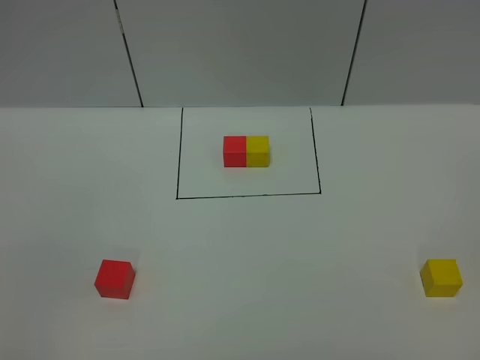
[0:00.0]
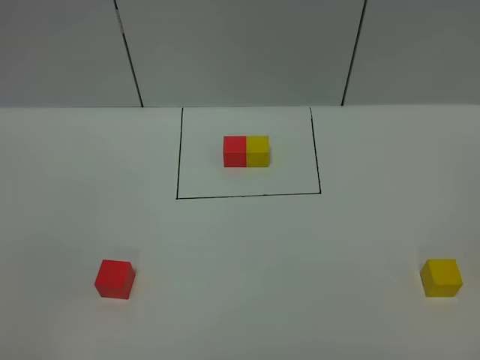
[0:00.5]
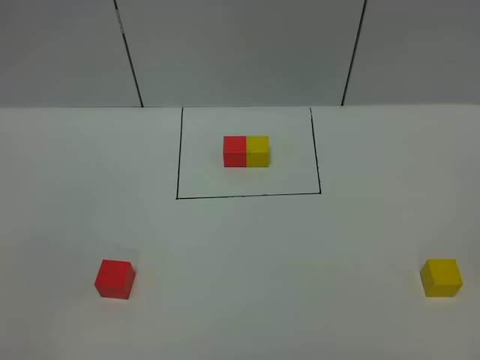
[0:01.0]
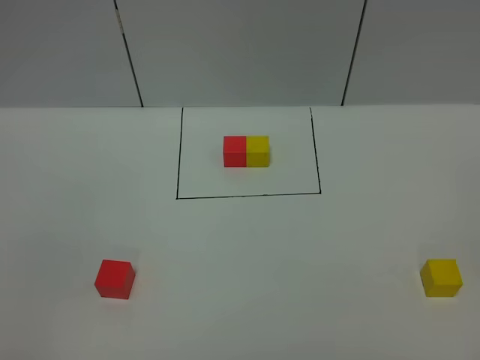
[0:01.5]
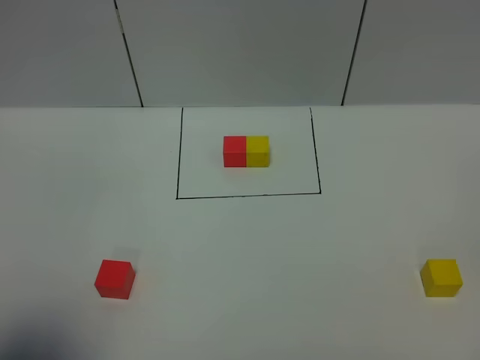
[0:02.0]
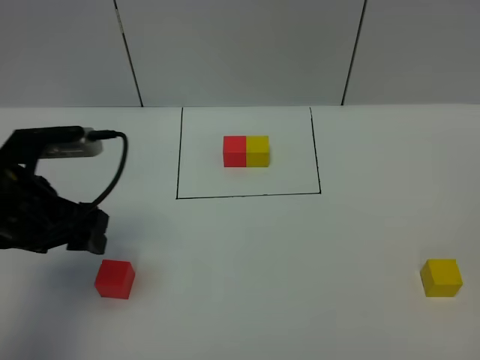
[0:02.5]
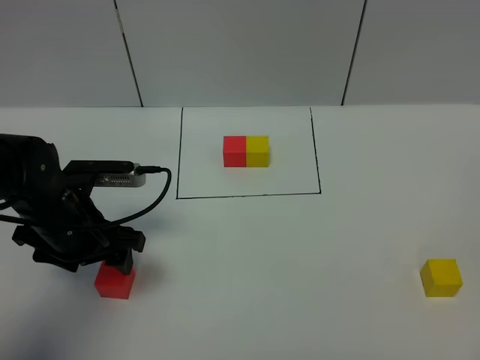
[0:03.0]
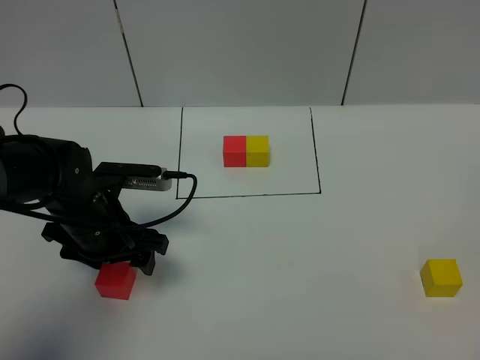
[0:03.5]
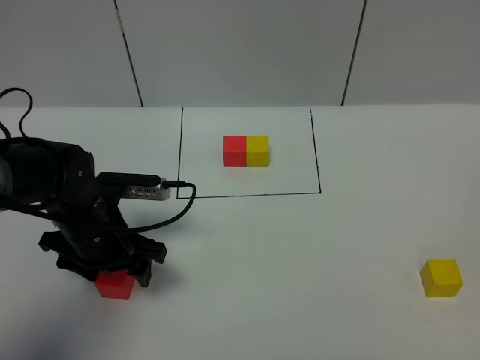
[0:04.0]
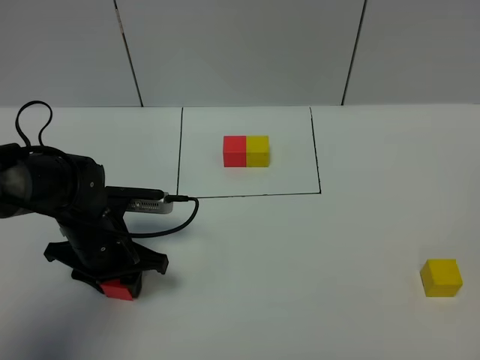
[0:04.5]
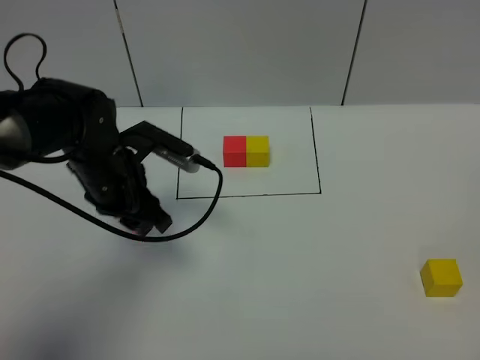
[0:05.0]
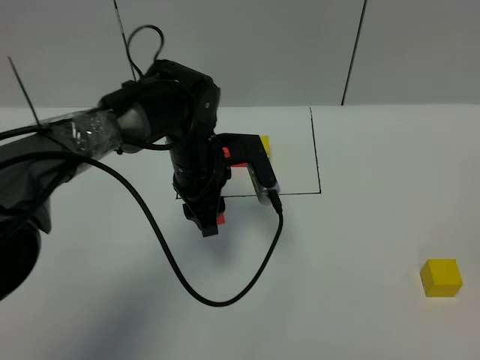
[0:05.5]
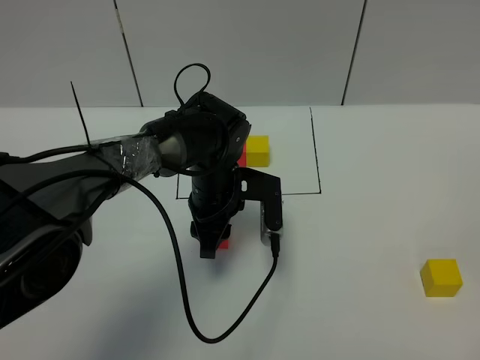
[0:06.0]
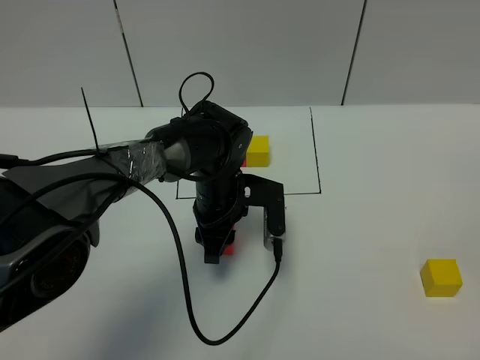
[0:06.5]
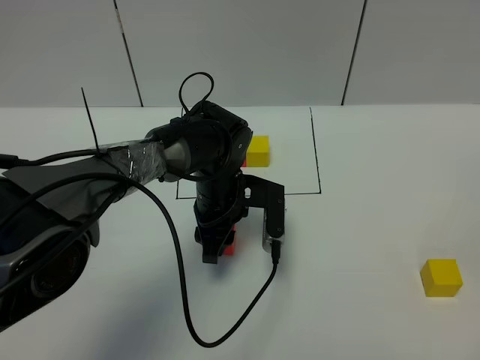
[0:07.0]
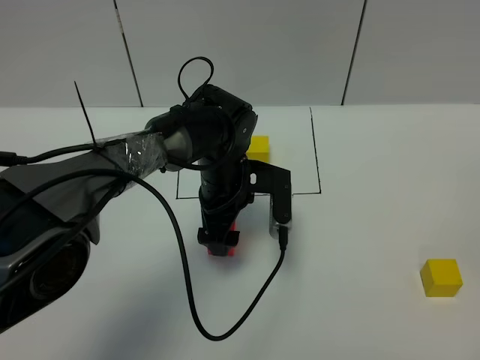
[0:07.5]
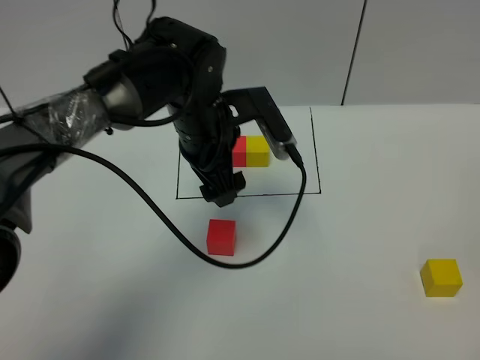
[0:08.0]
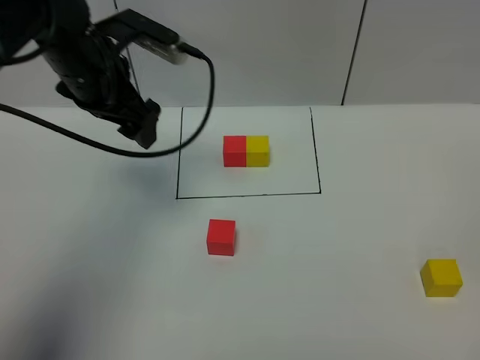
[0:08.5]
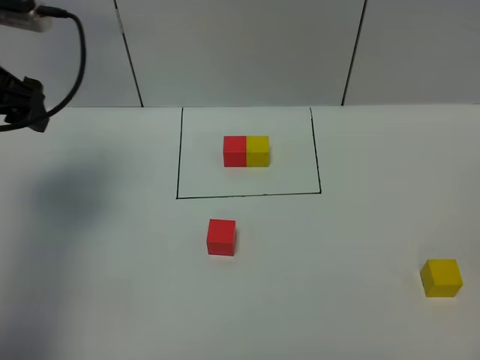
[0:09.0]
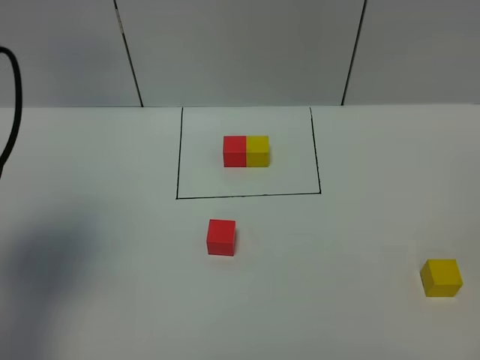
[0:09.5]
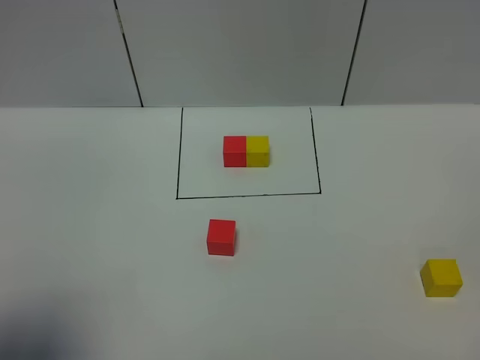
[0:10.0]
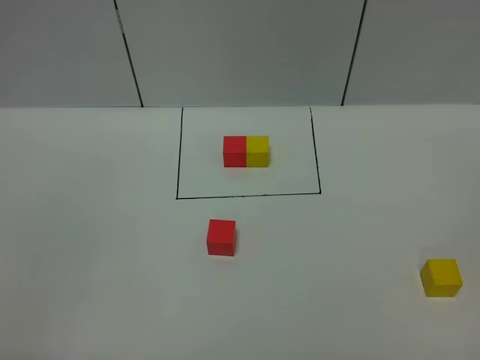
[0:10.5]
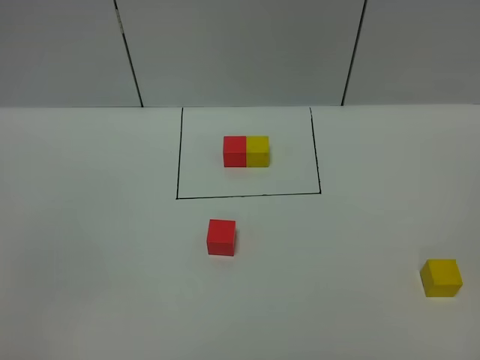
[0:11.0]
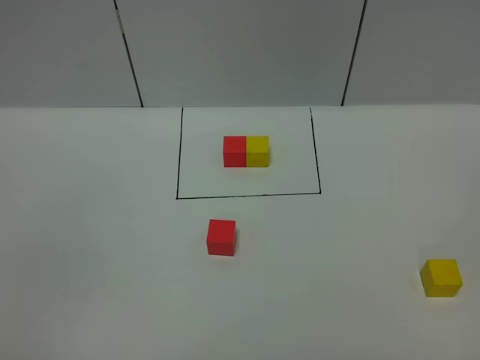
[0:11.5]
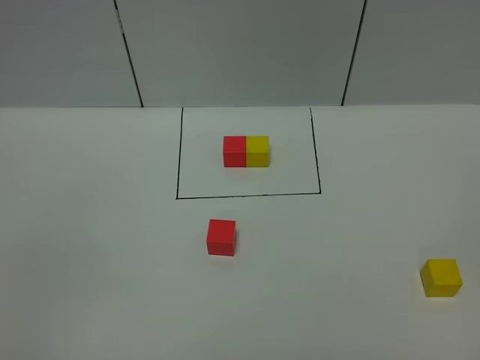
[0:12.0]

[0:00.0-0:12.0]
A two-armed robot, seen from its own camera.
Task of the whole recording: According to the building block template in front, assemble the scattered blocks together.
Step, 0:02.0 to 0:07.5: Put the red cube in the center of the table.
0:00.0 to 0:02.0: The left gripper shifts some 15 cm forward.
0:02.0 to 0:04.0: The left gripper shifts about 30 cm forward, downward and to the right.
0:04.0 to 0:06.0: The left gripper goes roughly 15 cm to the right and forward, and closes its fingers.
0:06.0 to 0:08.0: The left gripper heads upward, covering roughly 10 cm, and opens.
0:08.0 to 0:10.0: The left gripper goes roughly 40 cm backward and to the left.
0:10.0 to 0:12.0: The left gripper is displaced backward and downward by about 15 cm.

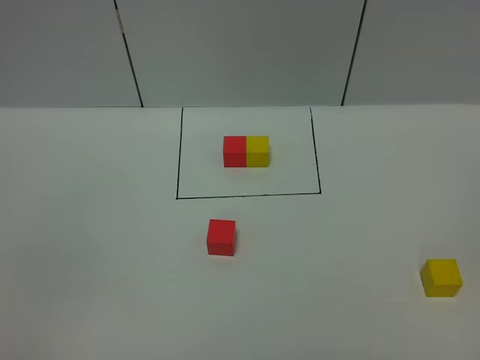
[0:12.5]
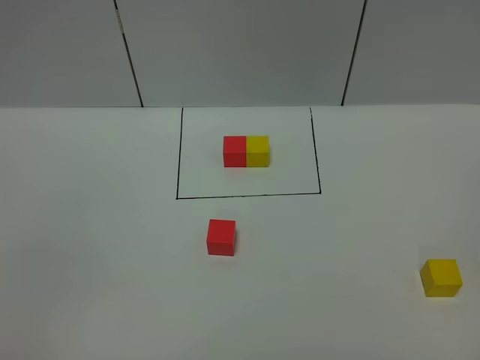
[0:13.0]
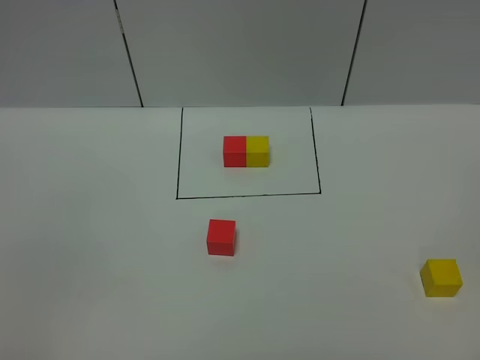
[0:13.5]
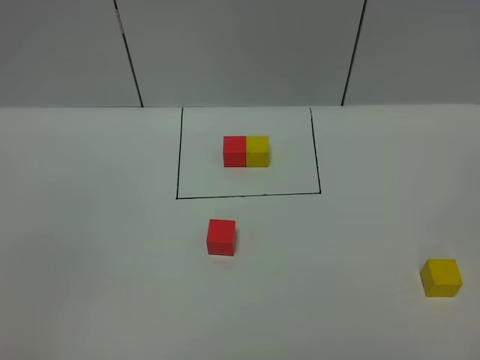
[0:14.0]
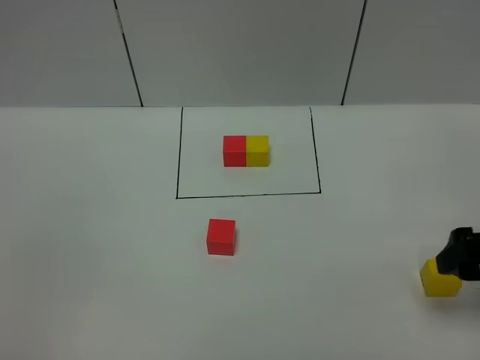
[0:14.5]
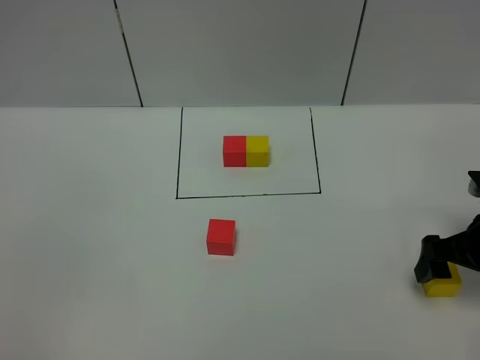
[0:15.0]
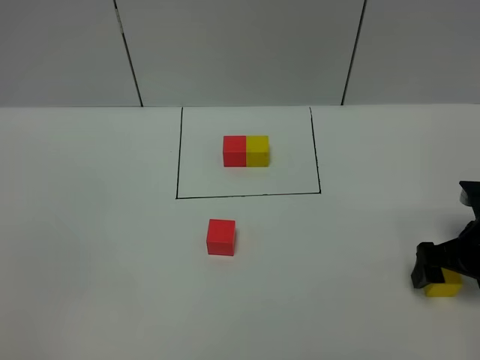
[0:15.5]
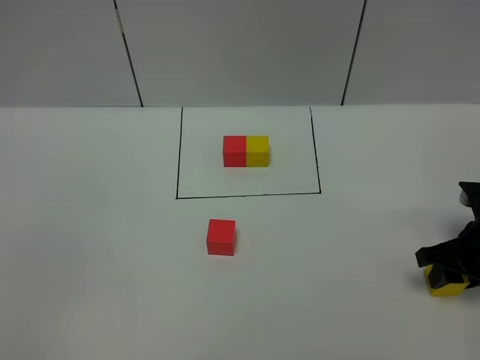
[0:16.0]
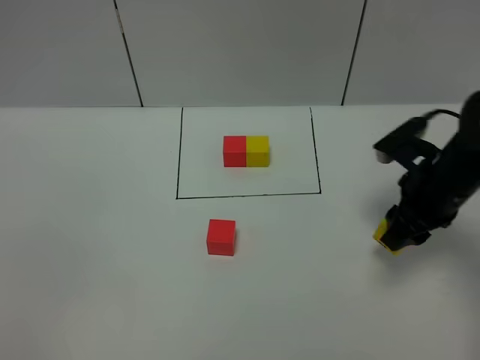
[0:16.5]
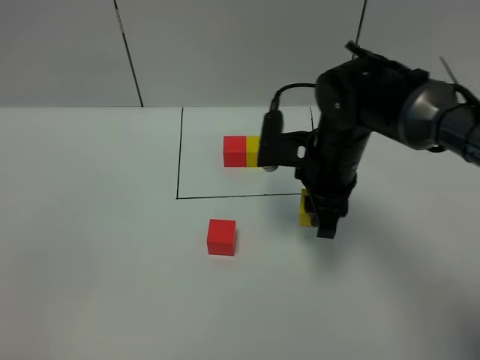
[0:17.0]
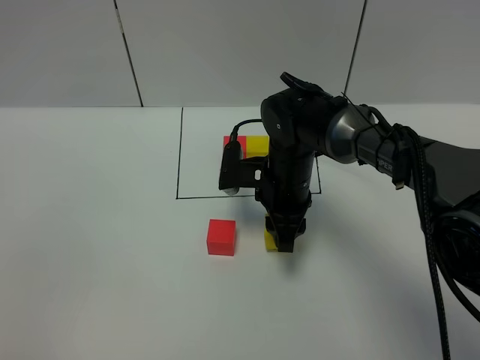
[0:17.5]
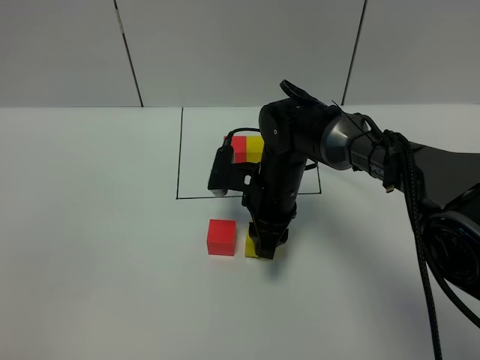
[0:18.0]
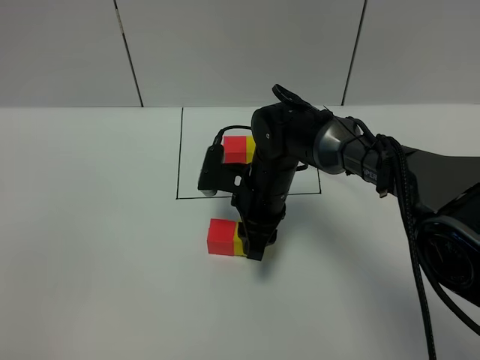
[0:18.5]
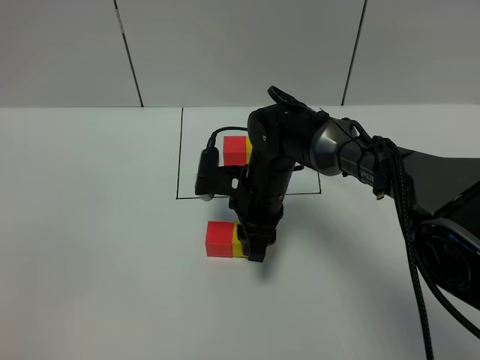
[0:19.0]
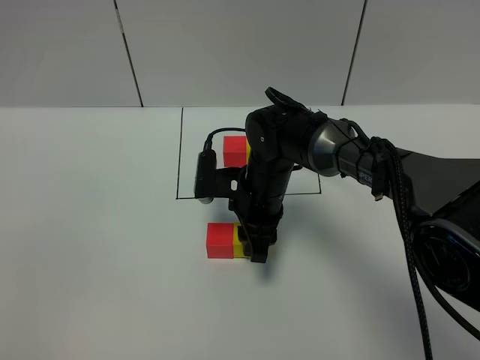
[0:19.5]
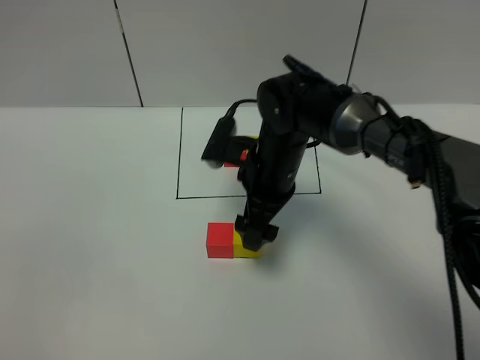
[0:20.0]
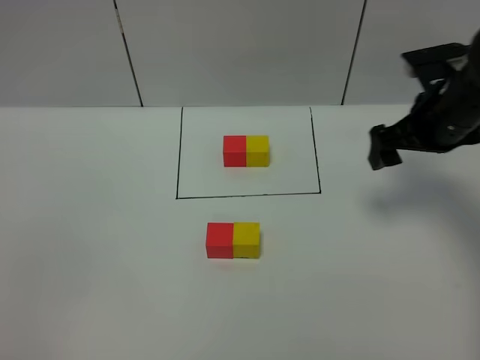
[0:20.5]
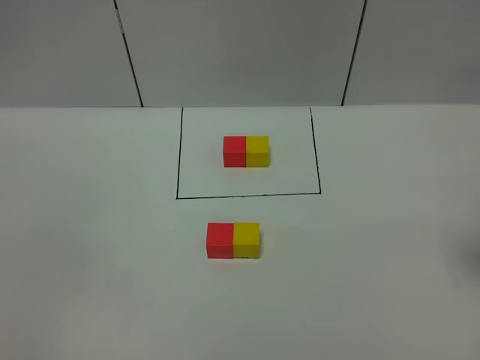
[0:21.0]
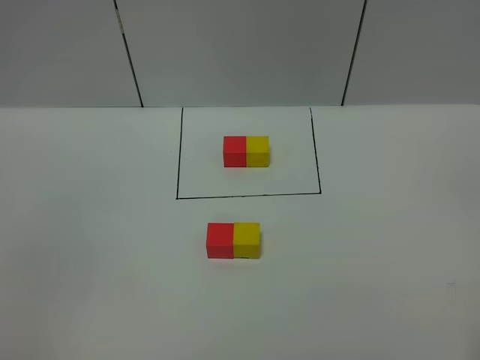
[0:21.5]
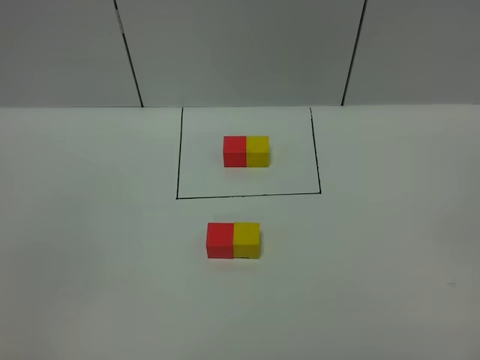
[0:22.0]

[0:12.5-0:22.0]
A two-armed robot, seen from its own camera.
Task of the whole recording: According to the building block template in front, assemble the scattered blocks together.
Step, 0:12.5 to 0:19.5: Put the yellow cube on the right of the red cube.
0:12.5 to 0:14.5: The right gripper moves forward, approximately 25 cm, and opens its fingers.
0:14.5 to 0:16.5: The right gripper goes about 15 cm forward and to the left, moves roughly 10 cm downward and comes back, and closes its fingers.
0:16.5 to 0:18.0: The right gripper shifts approximately 20 cm to the left.
0:18.0 to 0:20.0: The right gripper heads upward, covering about 5 cm, and opens its fingers.
0:20.0 to 0:22.0: The right gripper heads backward and to the right, covering approximately 40 cm.

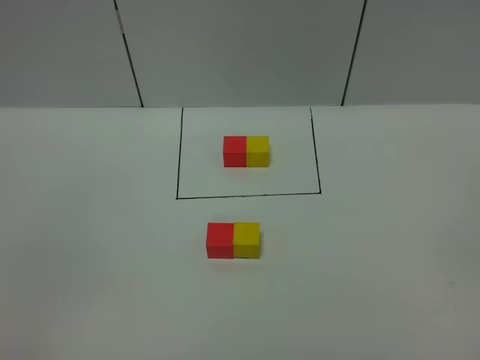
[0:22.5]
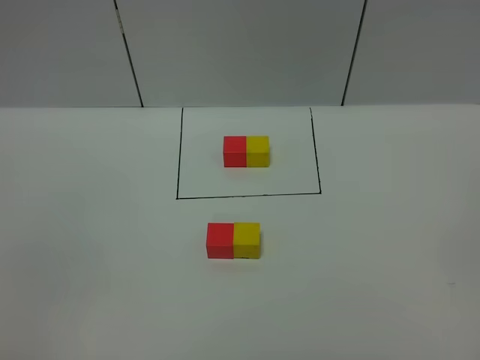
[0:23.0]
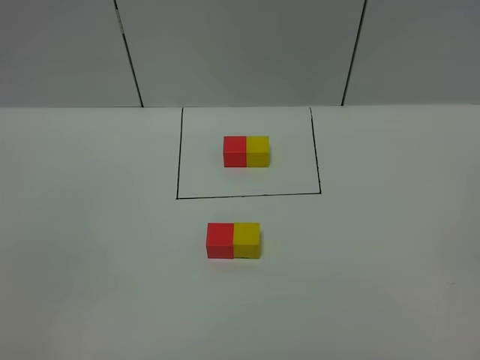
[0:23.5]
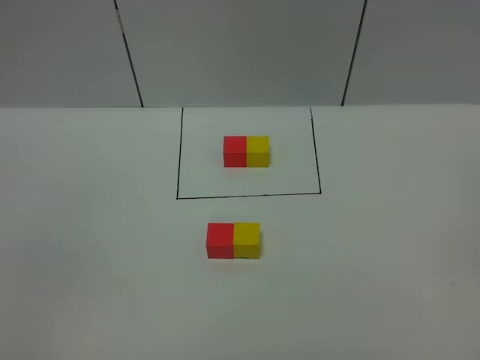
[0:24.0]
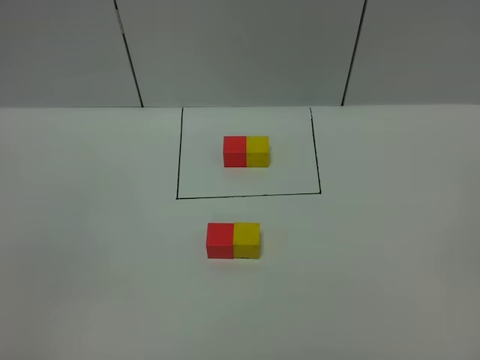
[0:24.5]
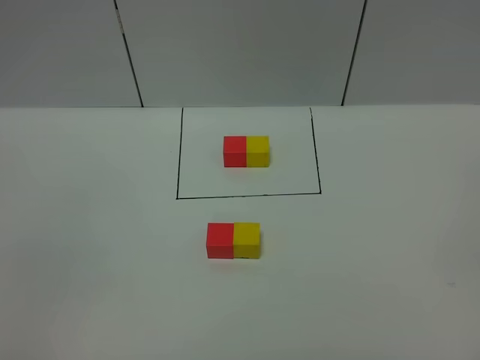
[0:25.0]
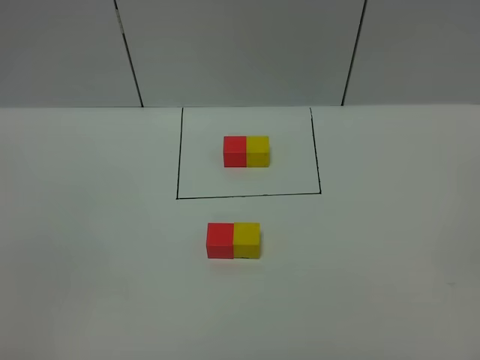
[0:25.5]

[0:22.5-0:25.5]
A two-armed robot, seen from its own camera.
Task of the whole recording: According to the building block template in front, assemble the scattered blocks together.
0:24.0 to 0:25.5: Neither gripper changes place.
